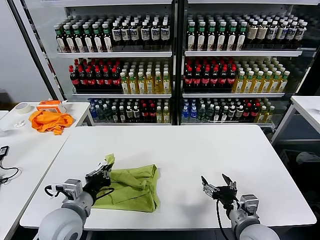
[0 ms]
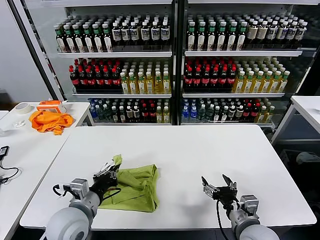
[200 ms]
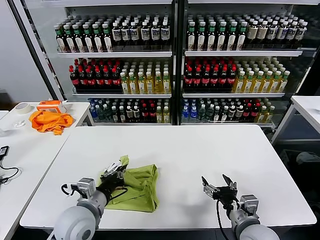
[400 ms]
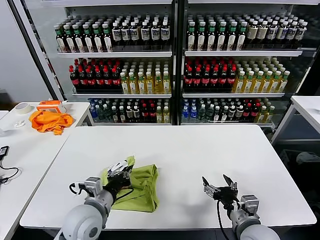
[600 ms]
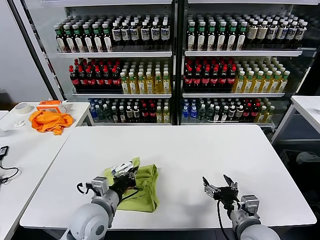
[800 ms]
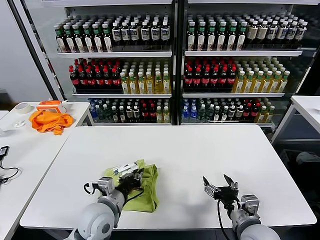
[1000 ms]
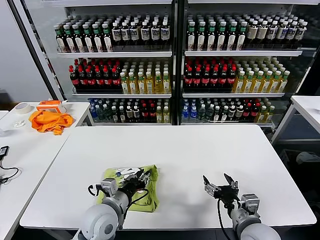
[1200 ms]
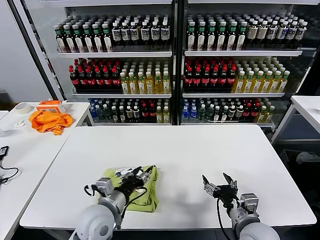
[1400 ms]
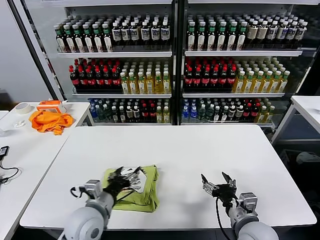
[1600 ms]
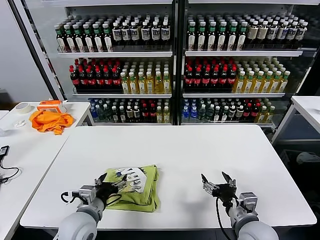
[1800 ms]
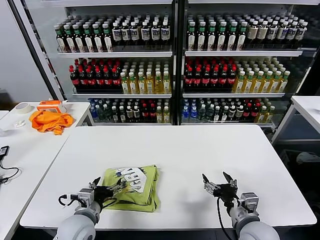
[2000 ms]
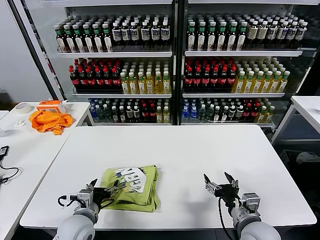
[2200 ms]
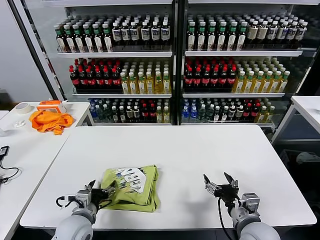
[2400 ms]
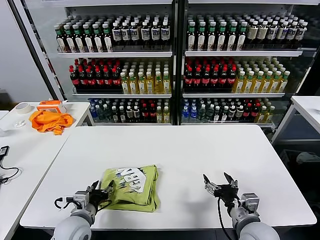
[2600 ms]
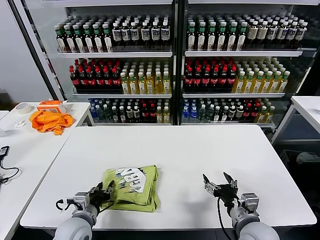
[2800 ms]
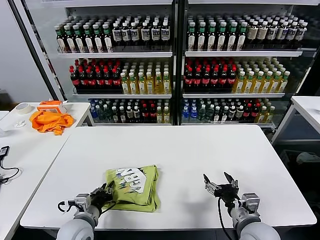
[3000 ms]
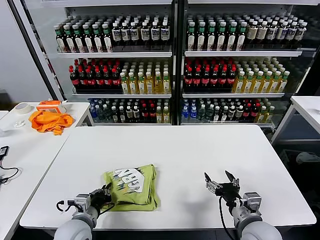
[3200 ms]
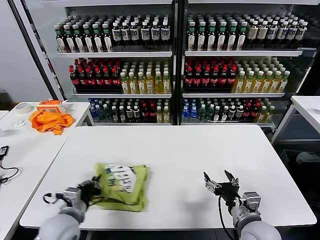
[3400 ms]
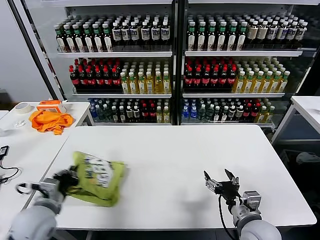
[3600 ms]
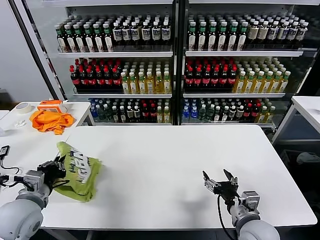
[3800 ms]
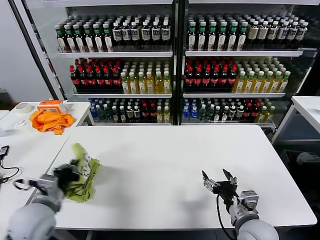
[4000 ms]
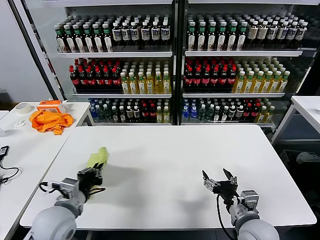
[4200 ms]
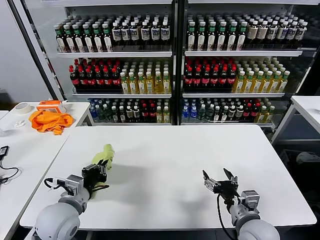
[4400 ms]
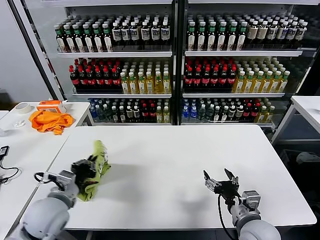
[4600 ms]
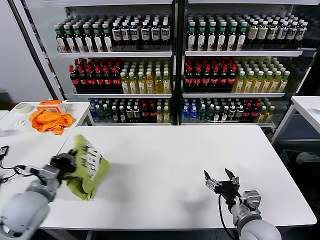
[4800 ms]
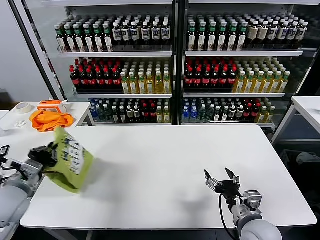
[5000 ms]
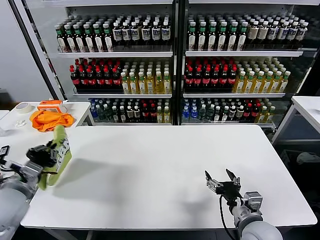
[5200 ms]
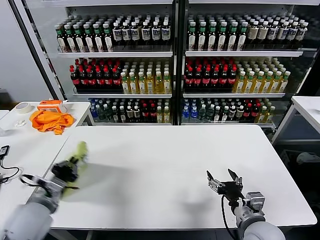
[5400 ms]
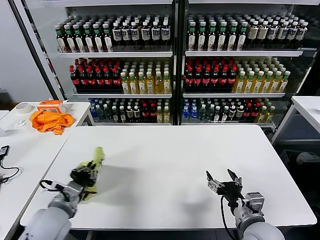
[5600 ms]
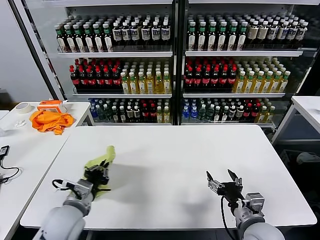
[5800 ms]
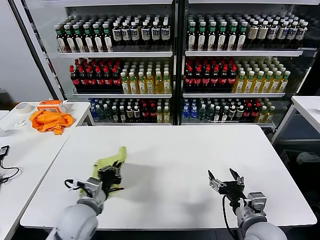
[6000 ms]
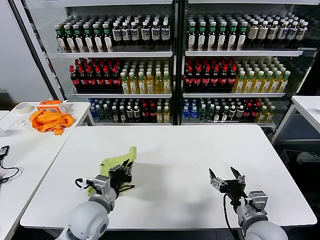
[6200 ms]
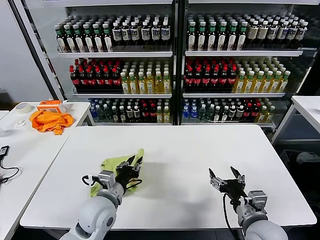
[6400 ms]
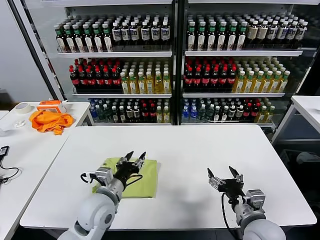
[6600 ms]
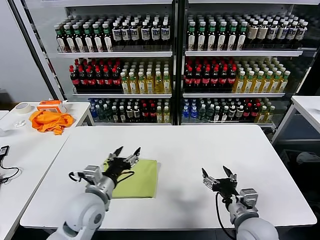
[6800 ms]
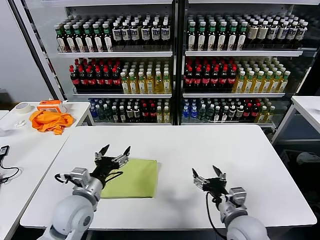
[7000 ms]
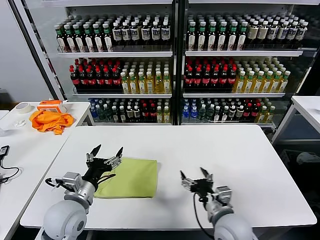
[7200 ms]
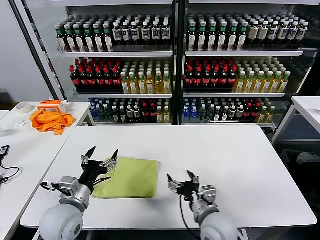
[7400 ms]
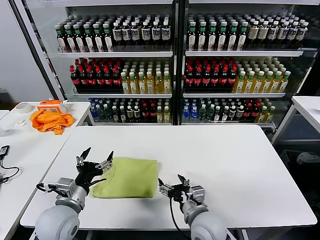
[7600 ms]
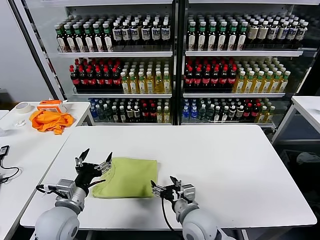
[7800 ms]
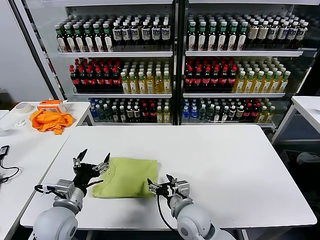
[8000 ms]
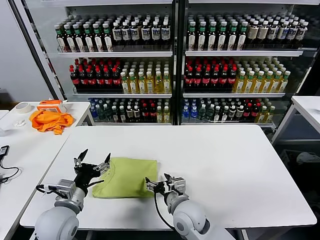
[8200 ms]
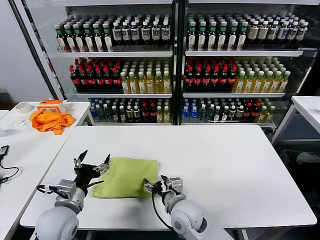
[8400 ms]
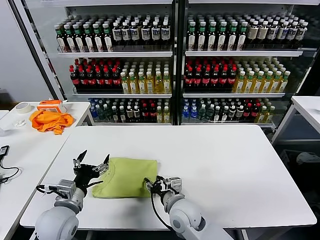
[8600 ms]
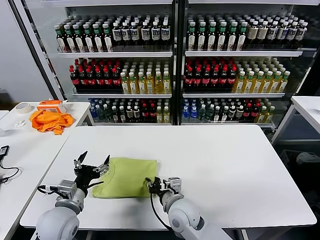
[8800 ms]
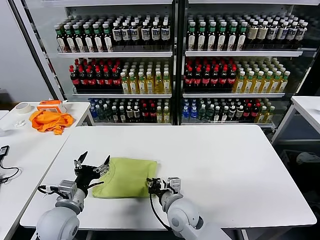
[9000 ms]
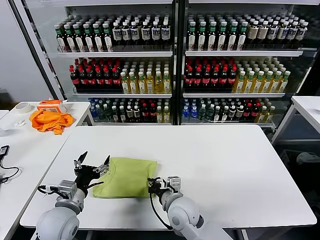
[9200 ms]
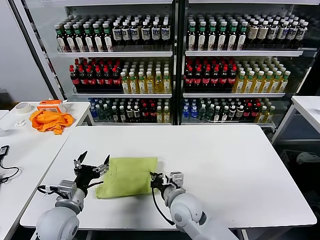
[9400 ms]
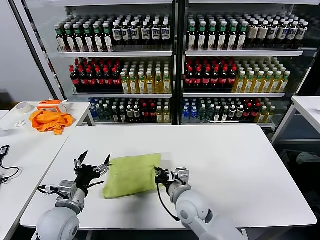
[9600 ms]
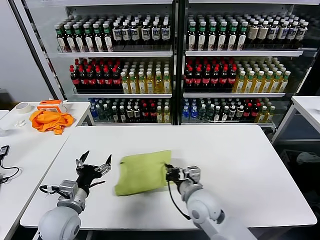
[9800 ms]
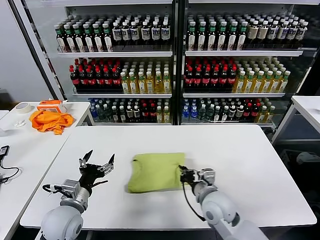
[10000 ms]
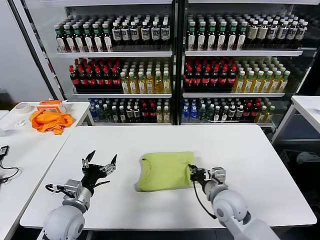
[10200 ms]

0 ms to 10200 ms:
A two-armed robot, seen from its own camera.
Task of the whole recording: fold and organize the clothes.
Step, 1400 ms to 6400 ms: Flip the folded clothes over with left gripper.
0 ms to 1400 ms: The left gripper shifts approximately 10 cm to the right, and opens up.
1400 ms to 3000 ms: The left gripper goes roughly 10 cm to the left and downward, and opens, then closes again.
3000 ms to 4400 ms: The left gripper moves upward, approximately 10 cm.
4400 ms to 5800 ms: The left gripper moves some 10 cm to the left and comes back.
5800 ms to 7200 ms: The right gripper moves to the left, roughly 5 cm; the left gripper travels to the right and back again, approximately 10 cm each way, and opens.
7200 ms to 8800 ms: The right gripper heads to the left and forward, covering some 15 cm, and closes up.
8800 ms to 10200 ms: The right gripper travels to the right by some 15 cm, and closes up.

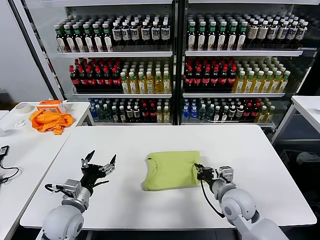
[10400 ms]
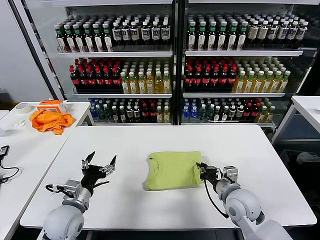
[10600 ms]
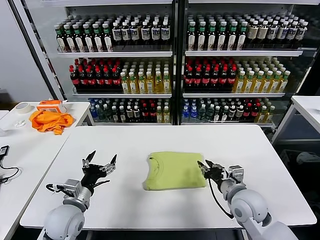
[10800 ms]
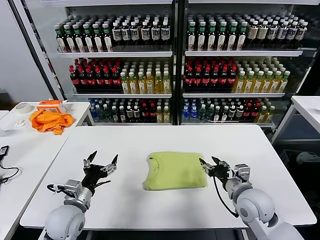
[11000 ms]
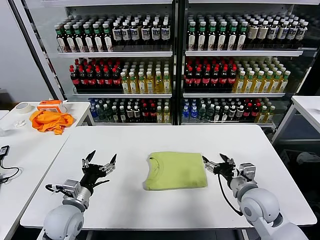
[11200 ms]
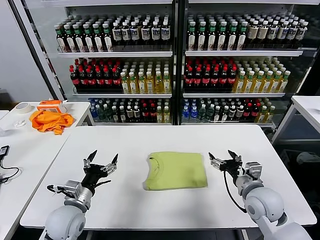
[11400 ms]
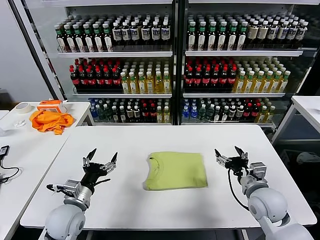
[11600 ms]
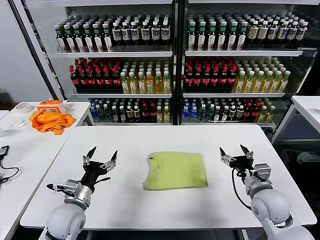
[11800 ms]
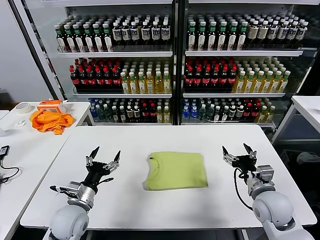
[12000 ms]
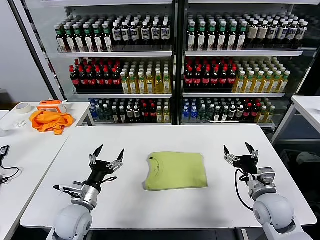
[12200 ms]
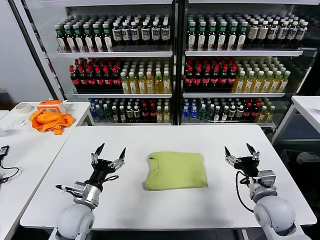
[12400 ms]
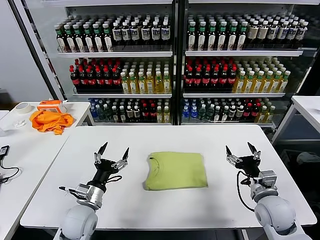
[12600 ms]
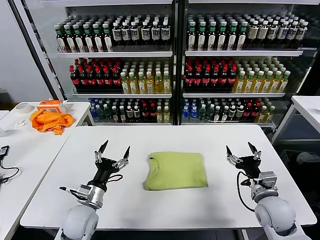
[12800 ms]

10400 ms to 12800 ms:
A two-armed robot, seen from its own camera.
Task of the whole recording: fold and organize the clothes.
10400 ms to 11600 ms: The right gripper travels to the right by about 10 cm, and opens.
11600 ms to 12800 ms: The grippers stay close to where they were, moving slightly.

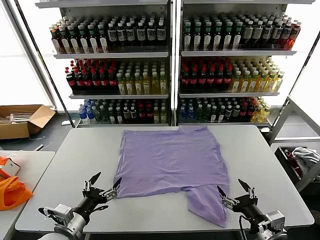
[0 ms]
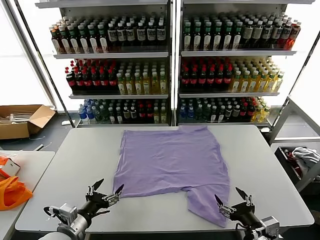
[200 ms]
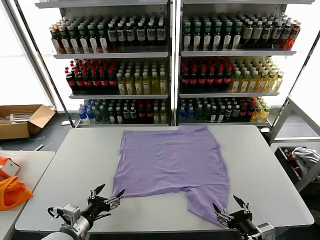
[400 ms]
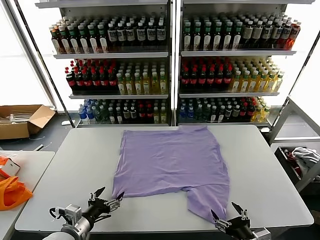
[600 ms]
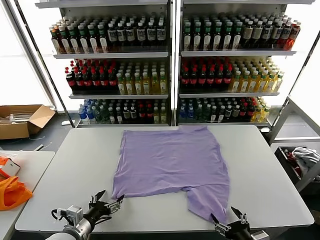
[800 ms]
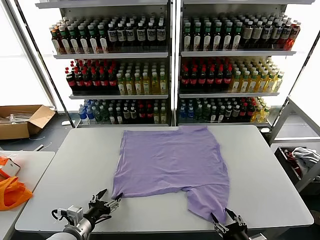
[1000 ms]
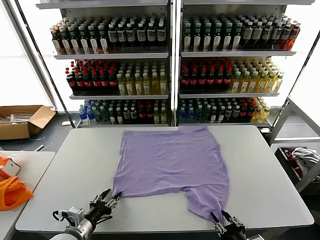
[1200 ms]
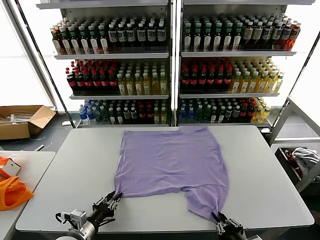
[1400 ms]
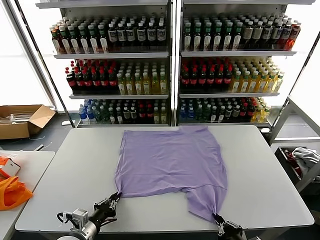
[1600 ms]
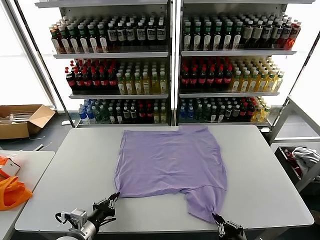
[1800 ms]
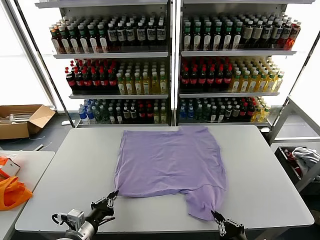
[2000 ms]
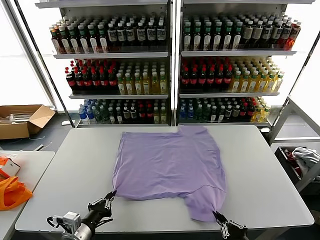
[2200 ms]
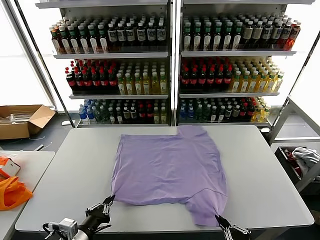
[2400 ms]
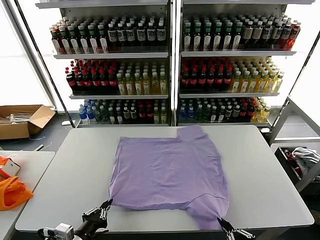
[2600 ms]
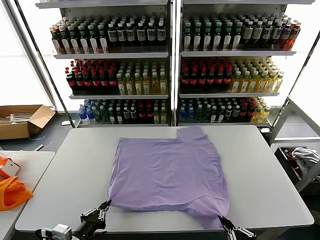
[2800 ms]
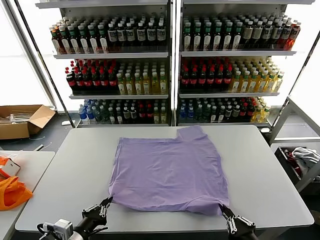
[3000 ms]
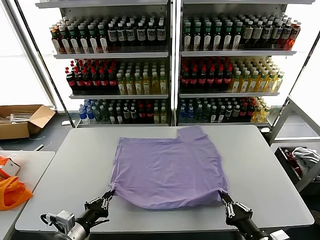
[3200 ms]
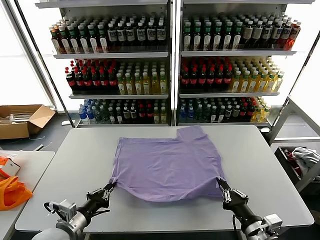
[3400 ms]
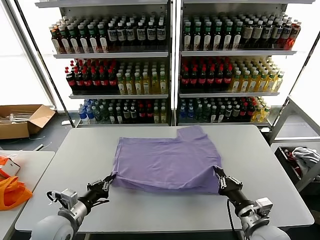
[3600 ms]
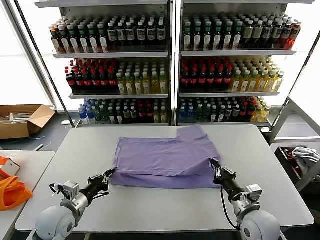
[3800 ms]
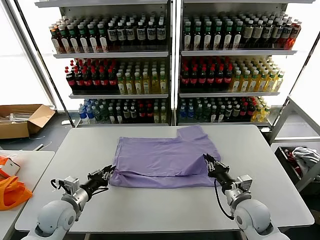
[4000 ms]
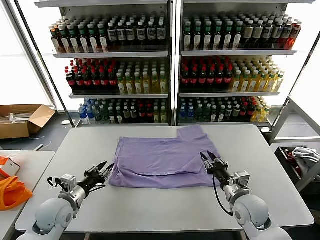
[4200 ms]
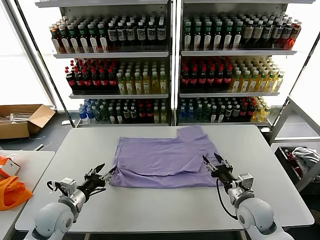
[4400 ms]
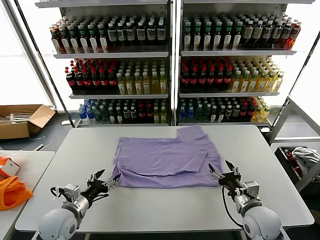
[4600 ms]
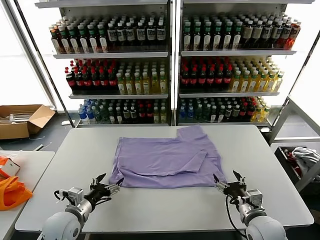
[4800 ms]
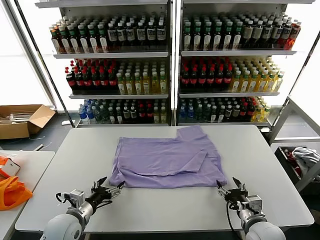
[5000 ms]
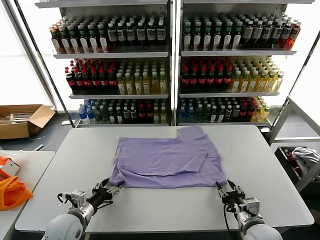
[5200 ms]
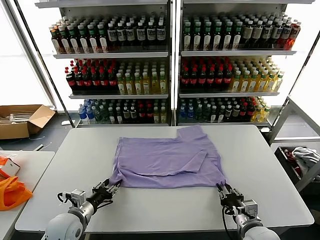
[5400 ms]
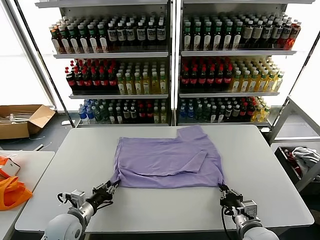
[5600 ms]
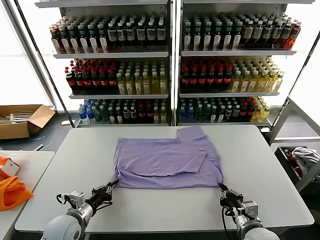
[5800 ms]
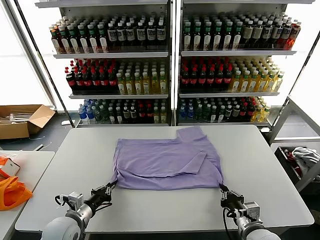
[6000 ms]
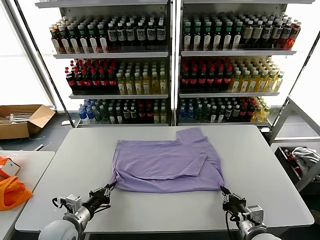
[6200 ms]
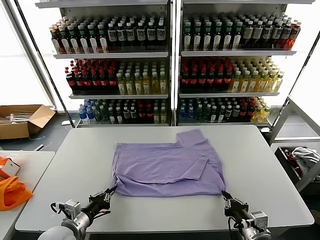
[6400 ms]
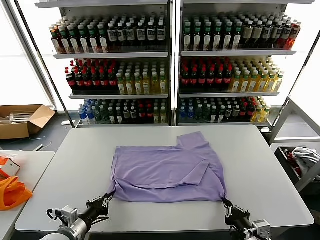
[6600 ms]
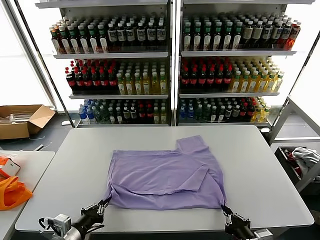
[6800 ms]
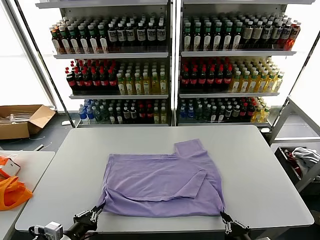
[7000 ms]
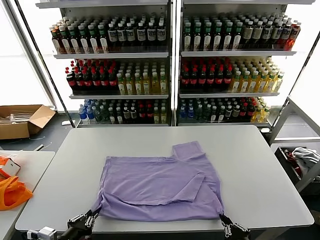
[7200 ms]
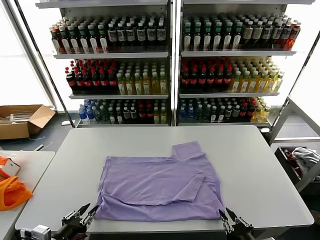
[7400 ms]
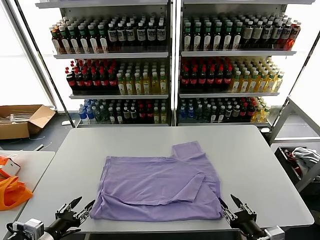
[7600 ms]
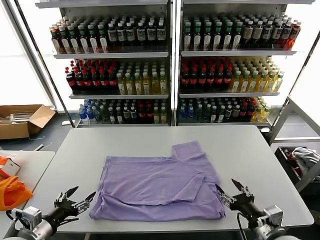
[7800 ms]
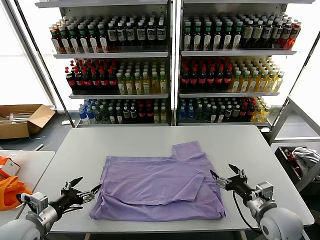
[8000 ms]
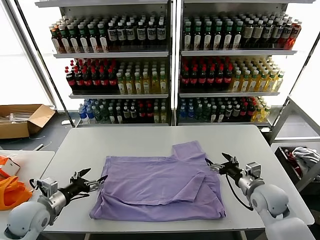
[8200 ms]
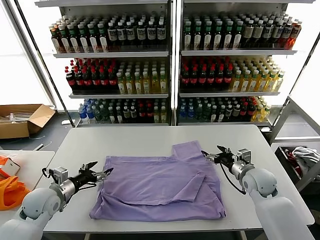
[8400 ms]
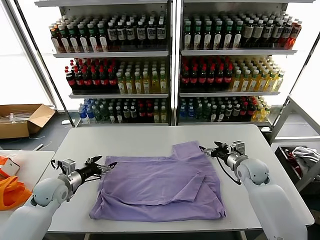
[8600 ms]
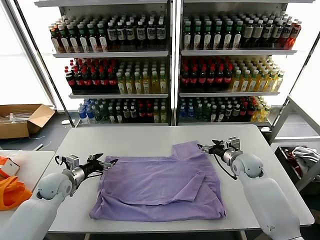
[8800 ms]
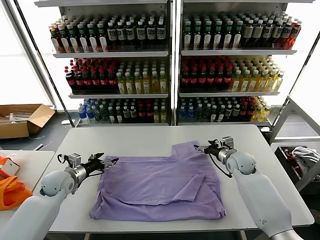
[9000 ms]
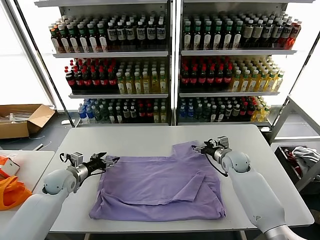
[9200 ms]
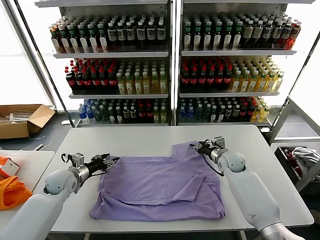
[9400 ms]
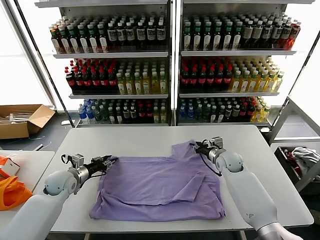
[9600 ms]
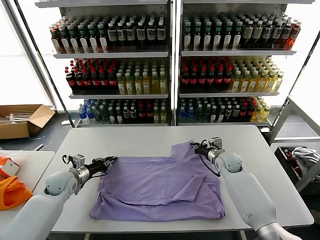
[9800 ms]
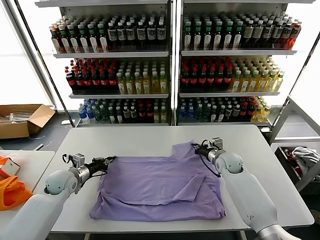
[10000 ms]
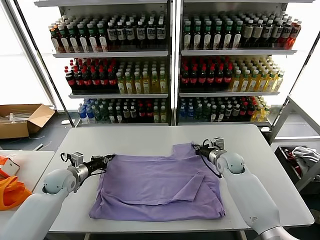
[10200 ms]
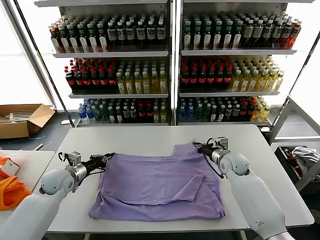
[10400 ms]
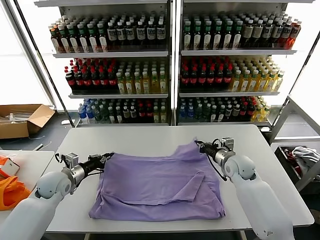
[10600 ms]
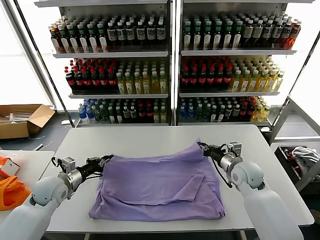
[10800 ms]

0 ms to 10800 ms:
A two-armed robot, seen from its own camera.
Task of the whole recording: fold and organize the clothes.
Step, 0 ms to 1600 ms: use both grippers simultaneously to clamp the lower edge of the clothing fabric.
Step, 1800 ms to 4000 ms: use both grippers to drag the lower edge of the fabric forward and fold it over the upper edge.
Step, 4400 ms to 7400 ms: Drag the clothes downward with both gripper.
Step, 7600 ms to 9800 ms: use both grippers simultaneously to clamp the upper edge of the clothing fabric.
1600 ms to 3000 ms: The left gripper heads upward, covering approximately 5 cm.
3000 ms to 4600 ms: The two grippers go some 15 cm forward. The left gripper opens. The right gripper opens.
4600 ms to 6200 ms: The right gripper travels backward by some 5 cm, and closes its fingers. The left gripper closes.
6200 ms to 7800 ms: The left gripper heads upward, to the left and backward, covering roughly 10 cm, and opens up. The right gripper goes about 5 cm upward, reaches about 10 cm backward, then returns, and opens up.
7800 ms to 9200 ms: Both grippers move forward, approximately 25 cm.
9200 ms to 10800 ms: The left gripper is displaced backward by some 5 cm, and closes up. The right gripper travels backward by some 10 cm, and closes up.
